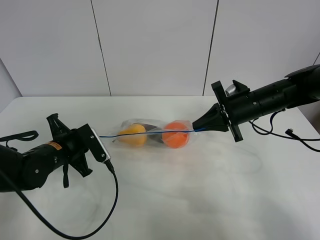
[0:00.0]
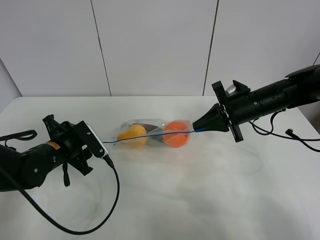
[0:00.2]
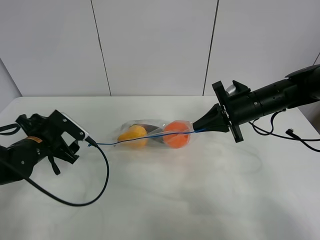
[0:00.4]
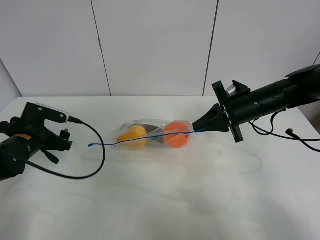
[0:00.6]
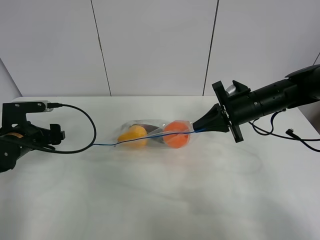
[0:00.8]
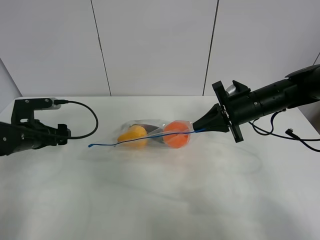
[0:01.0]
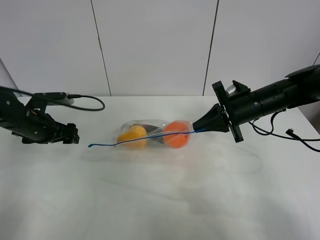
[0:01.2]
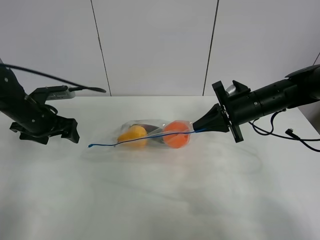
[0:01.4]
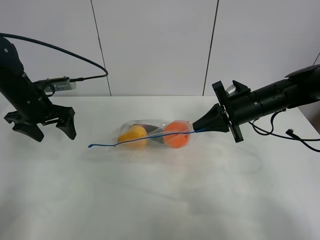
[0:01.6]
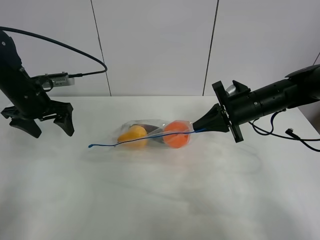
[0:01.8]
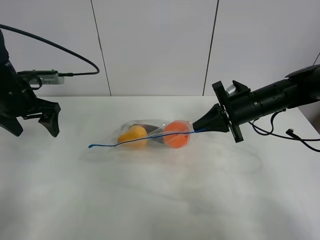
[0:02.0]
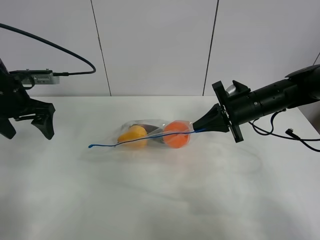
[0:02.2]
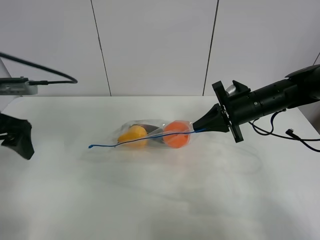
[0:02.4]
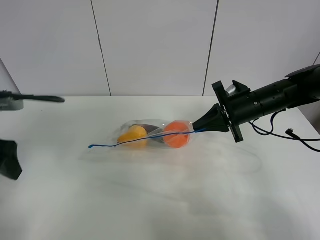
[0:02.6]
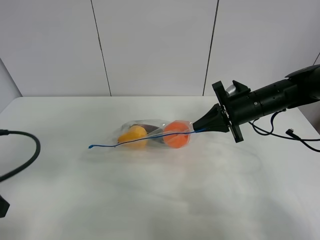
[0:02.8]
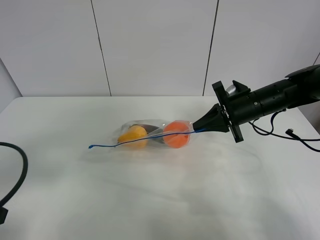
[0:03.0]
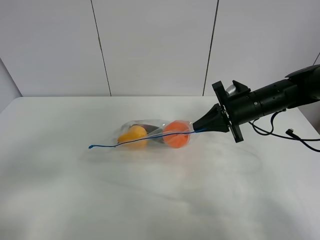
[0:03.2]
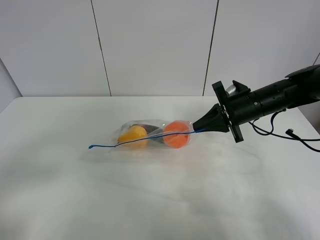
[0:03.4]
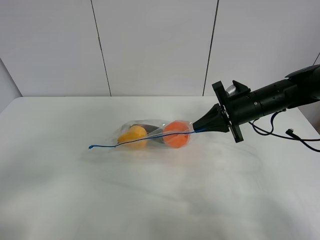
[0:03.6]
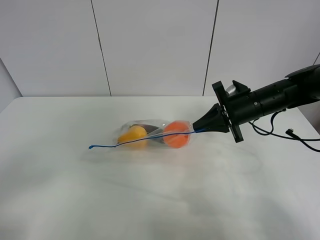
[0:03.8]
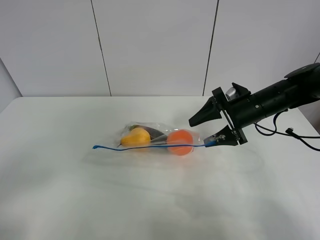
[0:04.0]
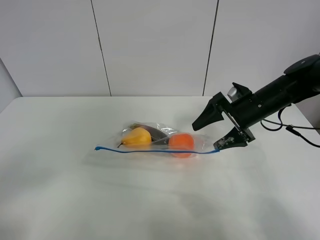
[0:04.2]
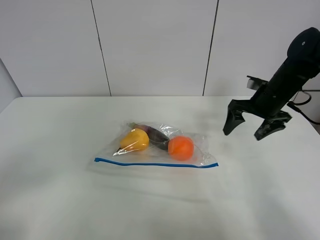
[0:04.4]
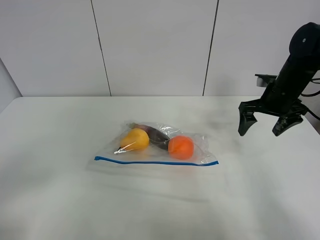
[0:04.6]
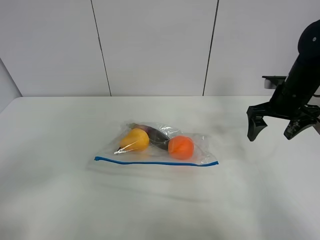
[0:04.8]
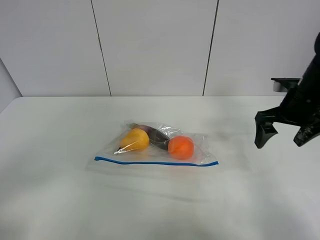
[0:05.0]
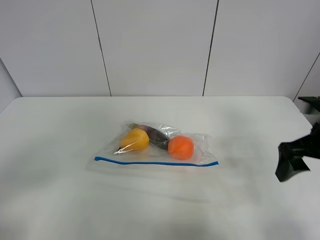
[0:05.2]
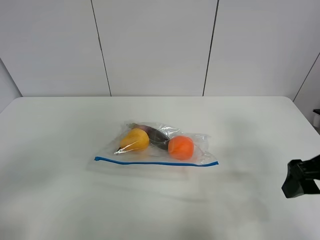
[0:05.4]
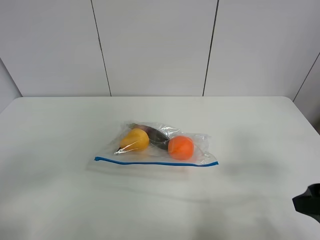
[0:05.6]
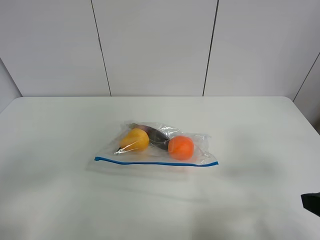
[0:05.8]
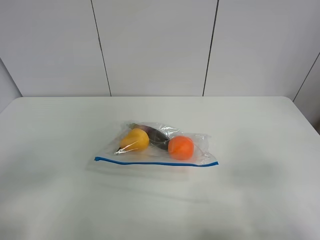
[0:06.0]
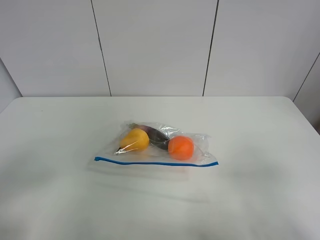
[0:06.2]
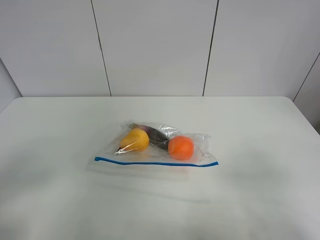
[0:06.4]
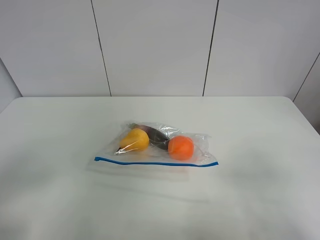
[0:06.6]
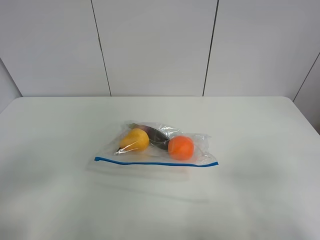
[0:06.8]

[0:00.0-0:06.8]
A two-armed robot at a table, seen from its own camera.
0:00.0 to 0:01.4: The left gripper moves to the left, forward and upward, approximately 10 cm, and opens up.
0:01.4 to 0:02.8: The left gripper goes about 25 cm backward.
0:02.8 to 0:04.0: The left gripper is displaced backward by about 10 cm. Meanwhile the right gripper opens.
0:04.0 to 0:05.4: The right gripper goes approximately 20 cm backward.
0:05.4 to 0:06.8: The right gripper goes about 15 cm backward.

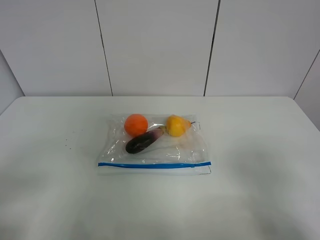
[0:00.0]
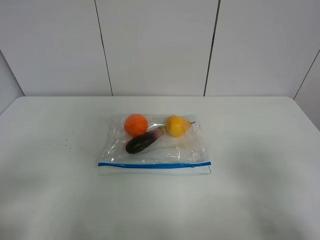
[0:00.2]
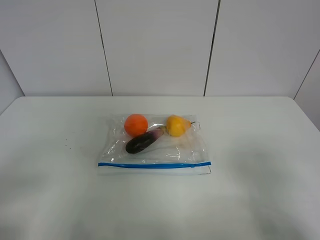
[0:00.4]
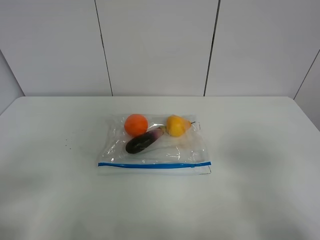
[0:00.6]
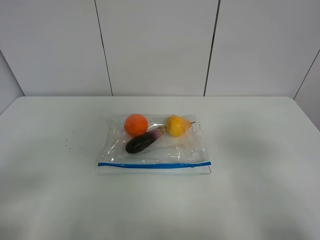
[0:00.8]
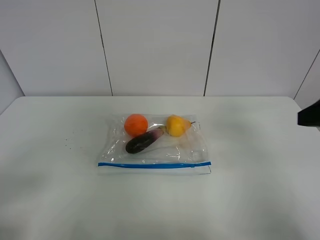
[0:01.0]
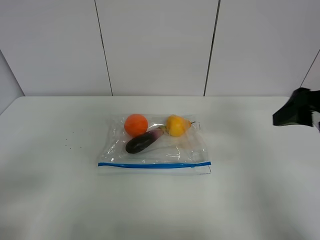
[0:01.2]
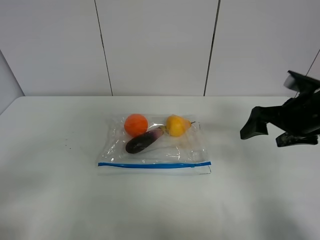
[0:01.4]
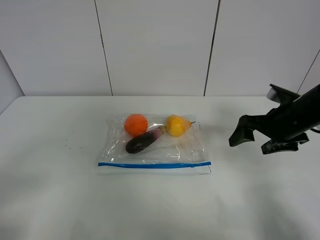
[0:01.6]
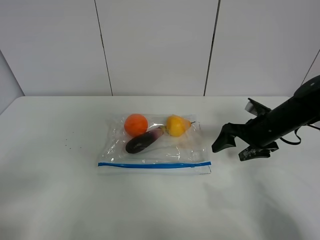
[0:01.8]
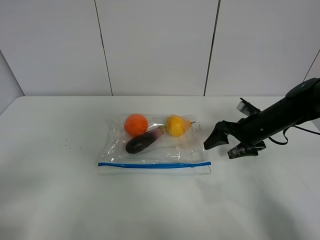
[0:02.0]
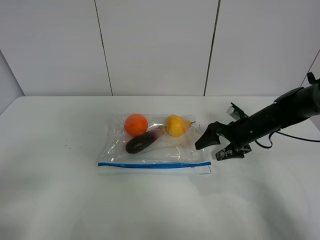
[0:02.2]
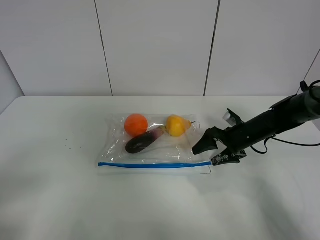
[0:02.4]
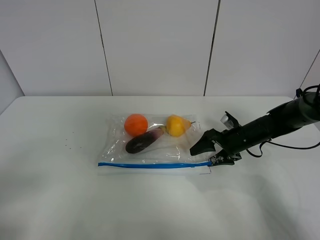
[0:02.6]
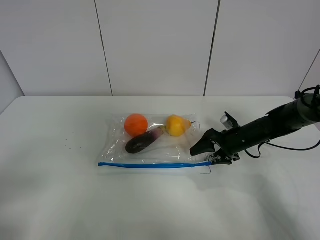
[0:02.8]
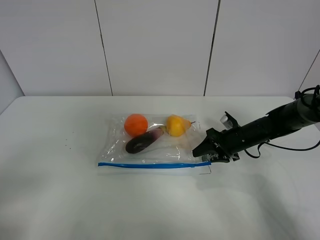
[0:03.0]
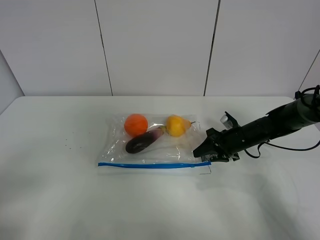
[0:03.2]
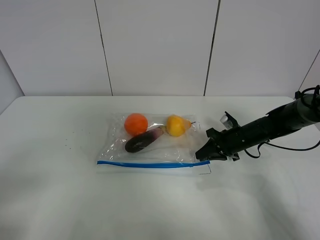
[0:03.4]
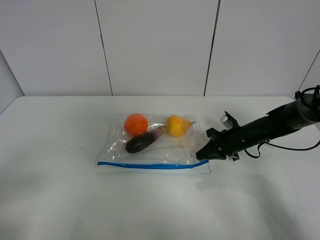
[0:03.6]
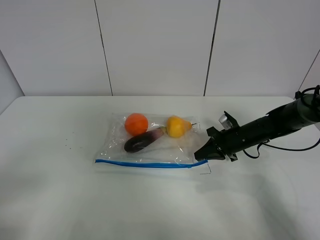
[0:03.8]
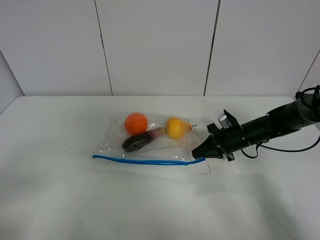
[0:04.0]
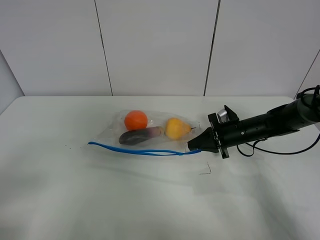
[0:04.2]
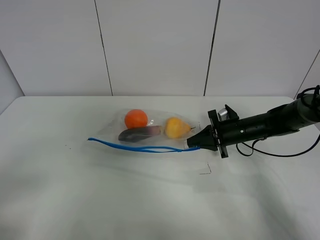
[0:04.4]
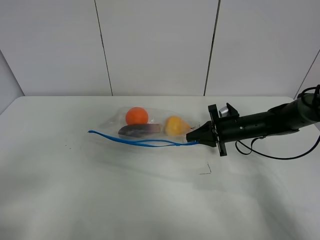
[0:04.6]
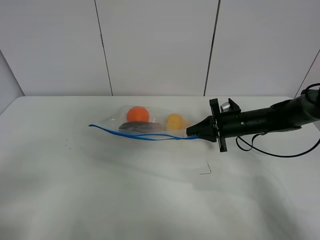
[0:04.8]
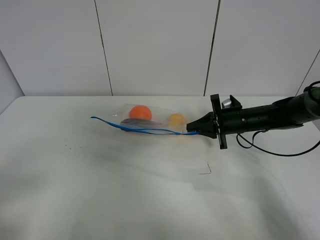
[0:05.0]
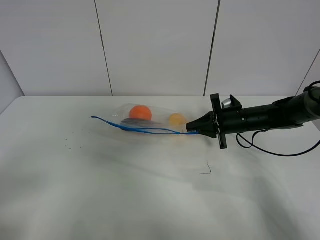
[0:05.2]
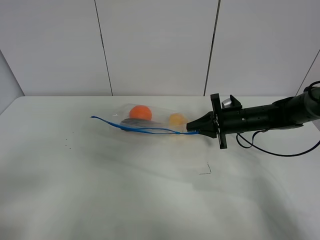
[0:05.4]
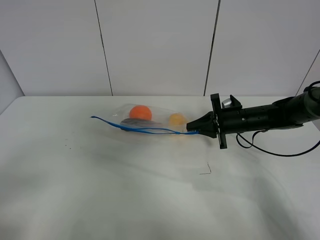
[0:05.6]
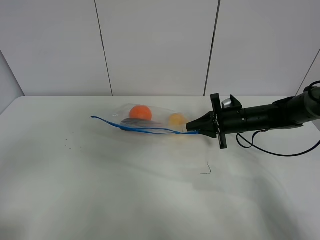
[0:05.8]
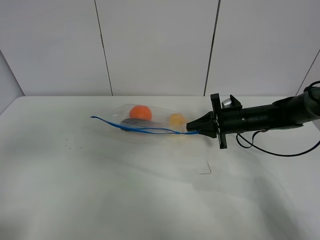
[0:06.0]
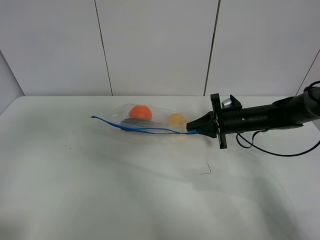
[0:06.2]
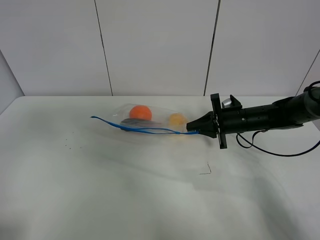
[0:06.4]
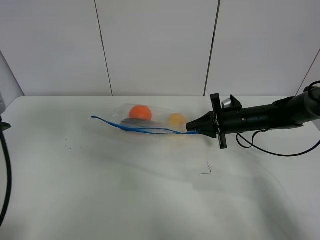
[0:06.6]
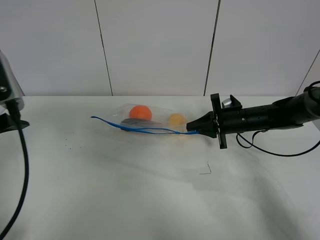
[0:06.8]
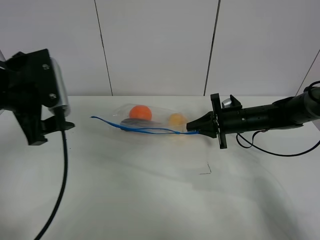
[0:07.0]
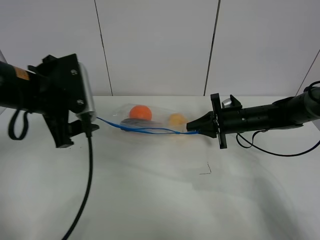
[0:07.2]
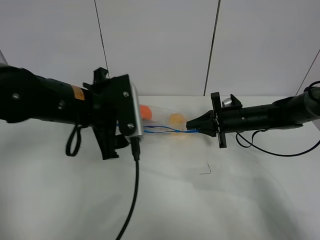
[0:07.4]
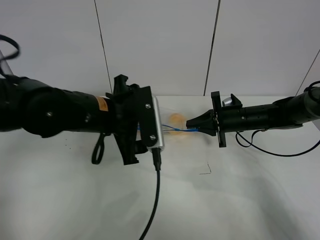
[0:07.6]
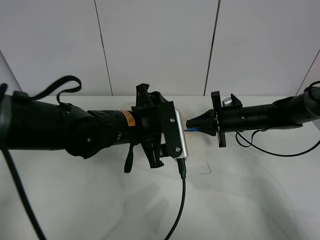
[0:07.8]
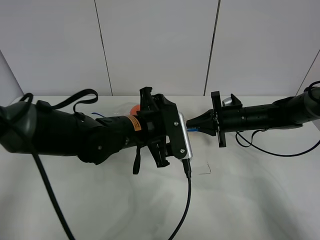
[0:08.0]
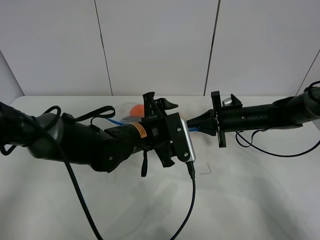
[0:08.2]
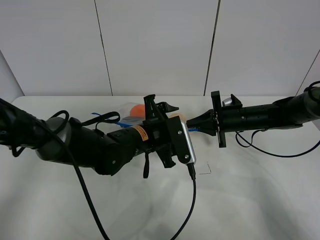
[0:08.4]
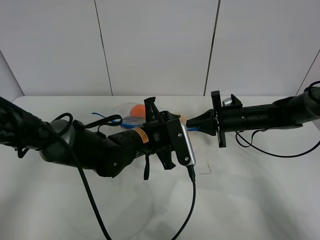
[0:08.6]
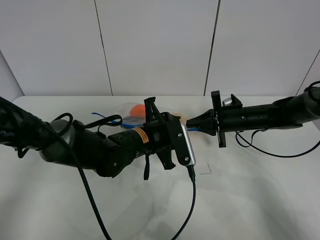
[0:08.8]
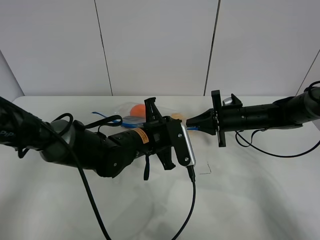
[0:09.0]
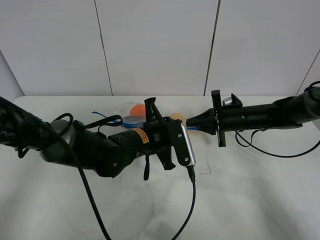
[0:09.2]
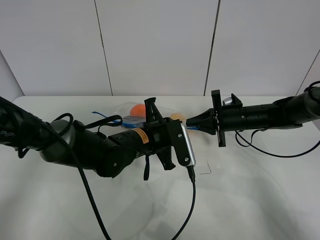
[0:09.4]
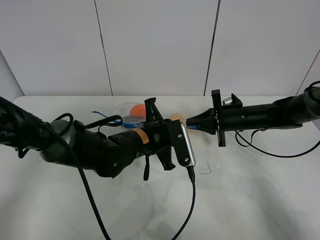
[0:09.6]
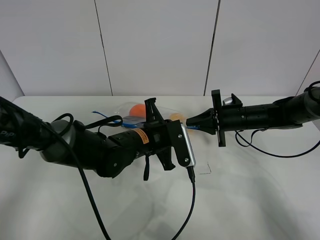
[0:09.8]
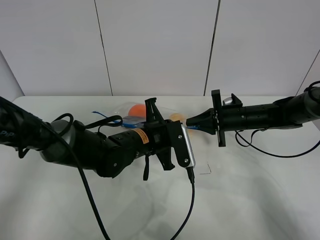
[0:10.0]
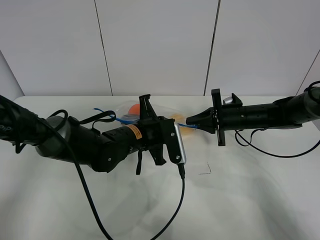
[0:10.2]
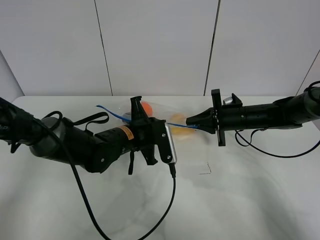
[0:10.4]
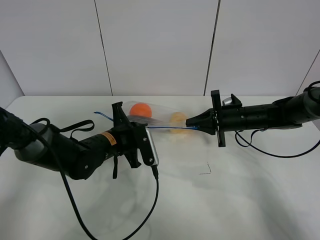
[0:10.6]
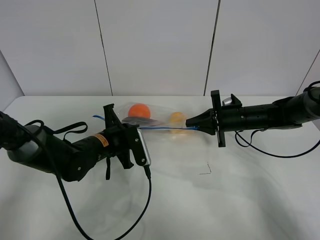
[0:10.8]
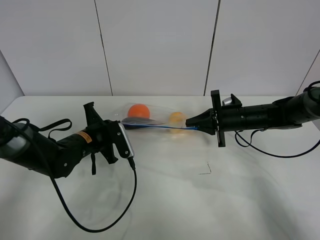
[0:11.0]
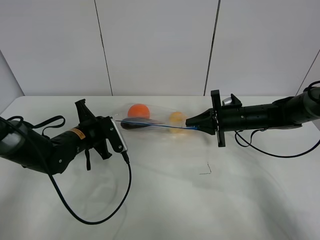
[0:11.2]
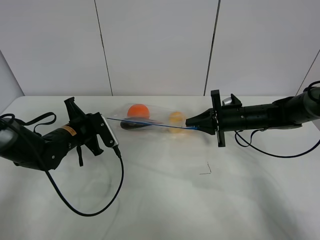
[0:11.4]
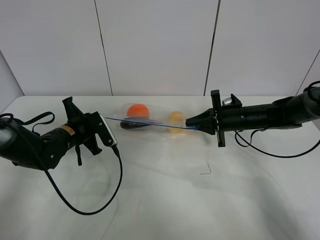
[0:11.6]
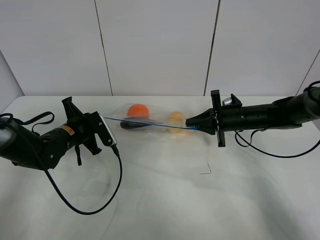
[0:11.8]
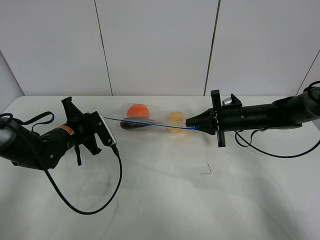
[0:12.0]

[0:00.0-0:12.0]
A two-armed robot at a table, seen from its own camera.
Step, 0:00.0 to 0:03.6: Grasp the fruit bag with right gripper.
Step, 0:03.8 to 0:05.0: Lift the fruit bag with your right gripper.
0:00.0 to 0:01.6: The right gripper goes approximately 30 cm forward.
0:01.6 to 0:03.0: The right gripper is displaced downward and forward by about 15 cm, and closes its fingers.
0:03.0 to 0:04.4: The right gripper closes up.
0:04.4 to 0:06.0: The left gripper heads upward and forward, covering roughly 10 cm.
0:06.0 to 0:07.6: The left gripper is displaced to the right, forward and downward by roughly 30 cm.
0:07.6 to 0:09.0: The left gripper shifts about 10 cm downward and to the right, and closes up.
0:09.0 to 0:10.4: The grippers move only a little.
0:10.4 to 0:12.0: The left gripper goes approximately 15 cm to the left.

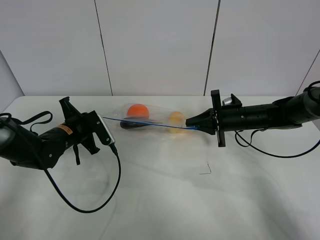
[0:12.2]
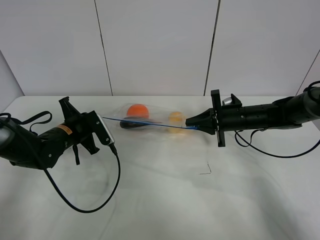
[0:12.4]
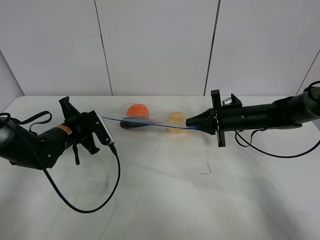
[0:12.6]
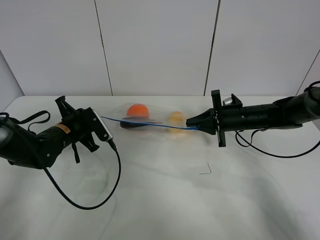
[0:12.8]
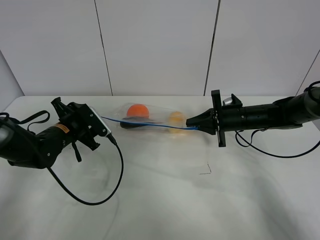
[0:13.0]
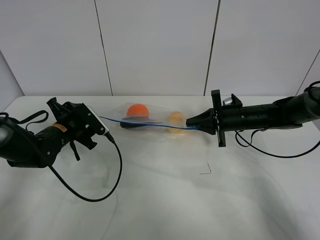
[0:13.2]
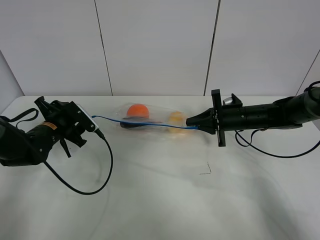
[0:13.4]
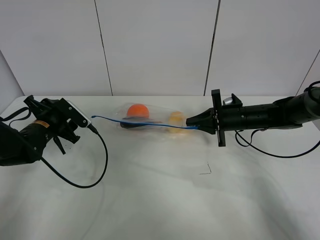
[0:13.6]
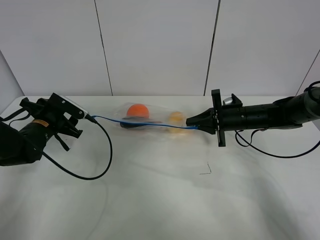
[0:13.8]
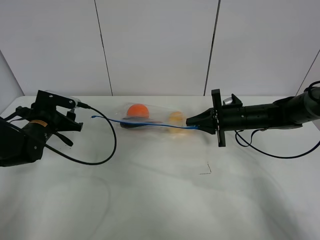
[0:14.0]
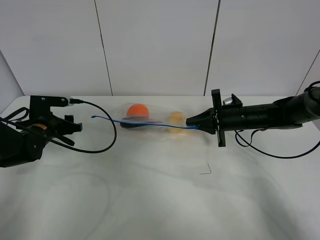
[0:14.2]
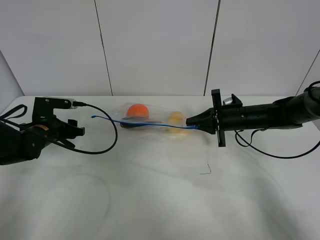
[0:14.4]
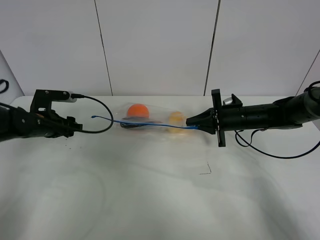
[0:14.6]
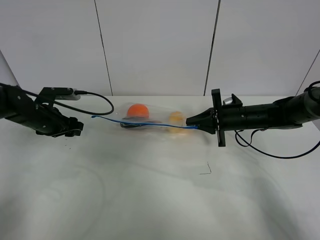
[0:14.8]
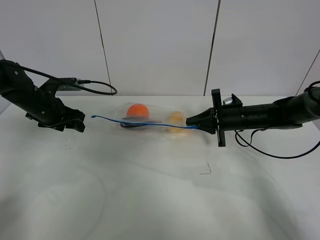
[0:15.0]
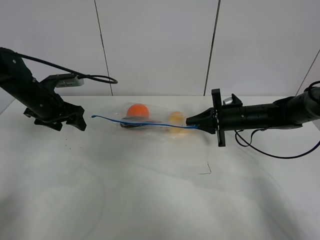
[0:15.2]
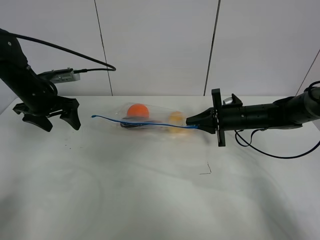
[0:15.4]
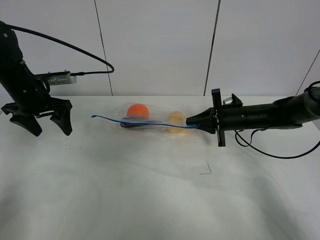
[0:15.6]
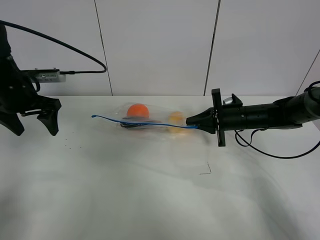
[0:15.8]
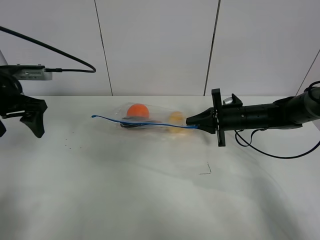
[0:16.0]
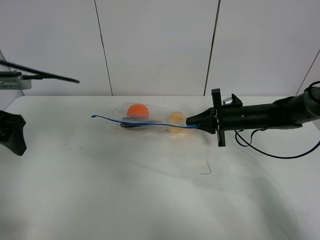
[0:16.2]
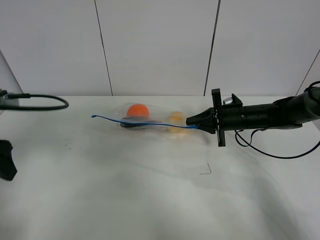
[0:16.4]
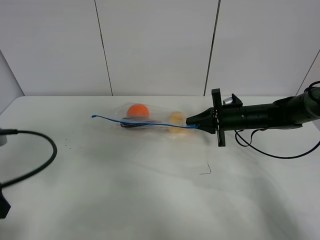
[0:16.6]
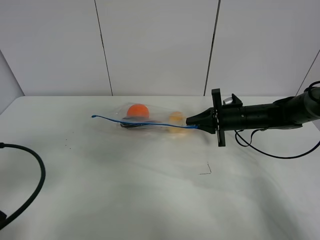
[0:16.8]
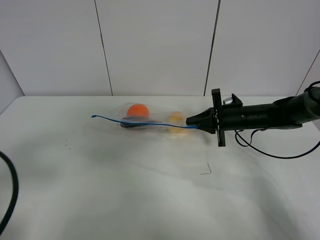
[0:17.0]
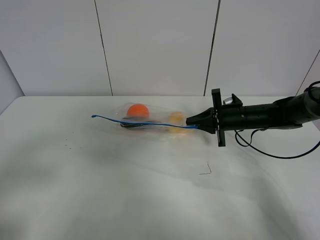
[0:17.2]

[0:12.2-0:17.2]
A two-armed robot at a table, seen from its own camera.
0:12.2 to 0:13.8: The left gripper shifts approximately 5 cm to the left, and opens its fingers.
0:13.8 to 0:15.6: The left gripper shifts about 10 cm upward.
0:15.6 to 0:17.2: The left gripper moves backward, about 30 cm.
